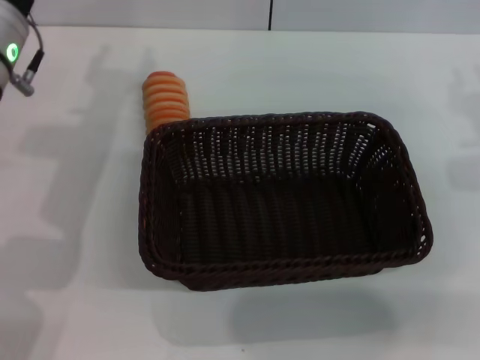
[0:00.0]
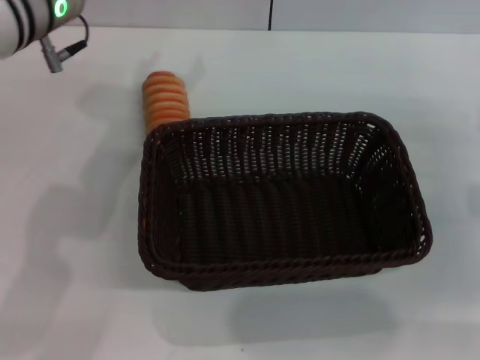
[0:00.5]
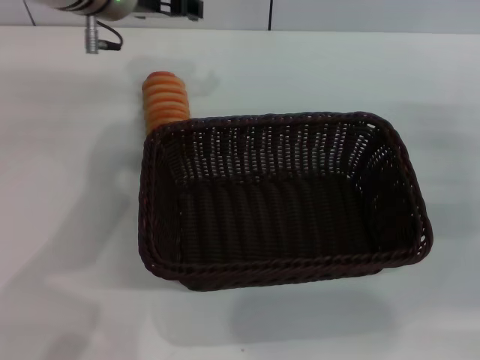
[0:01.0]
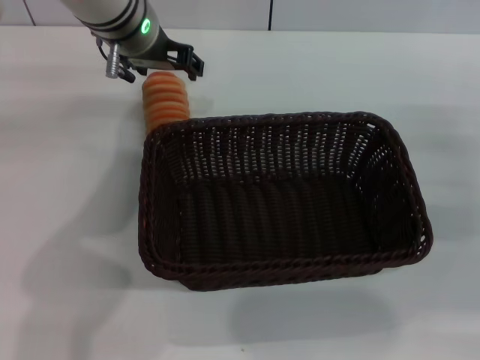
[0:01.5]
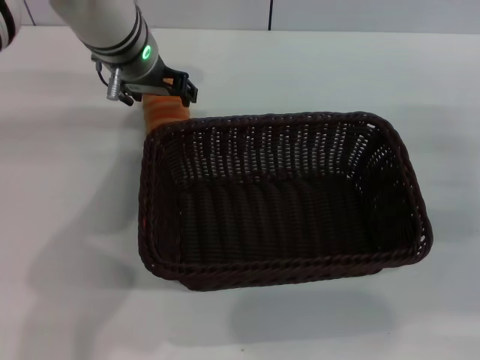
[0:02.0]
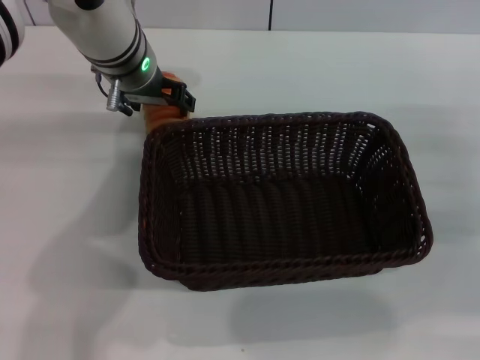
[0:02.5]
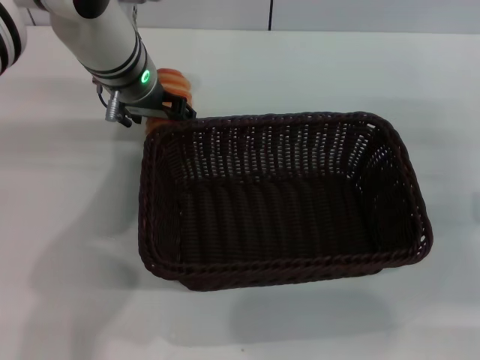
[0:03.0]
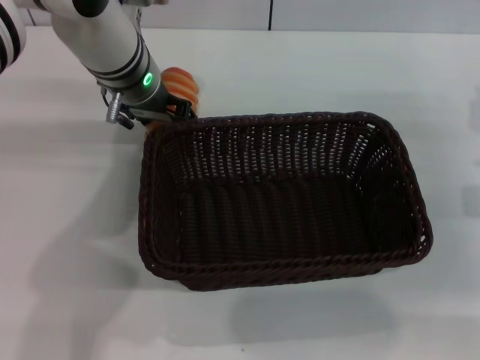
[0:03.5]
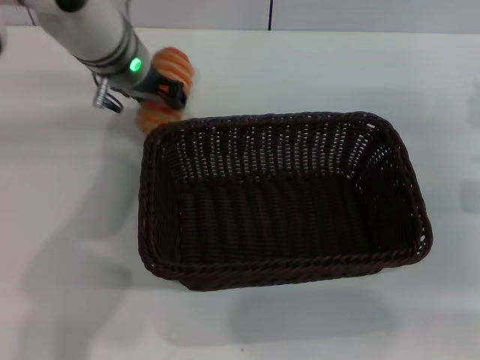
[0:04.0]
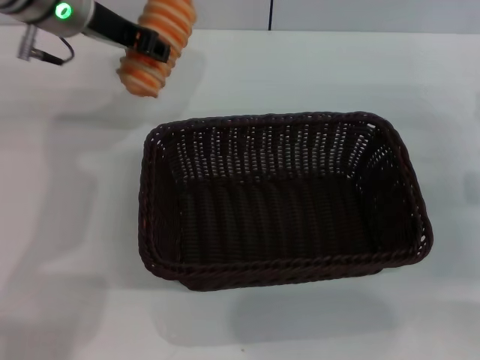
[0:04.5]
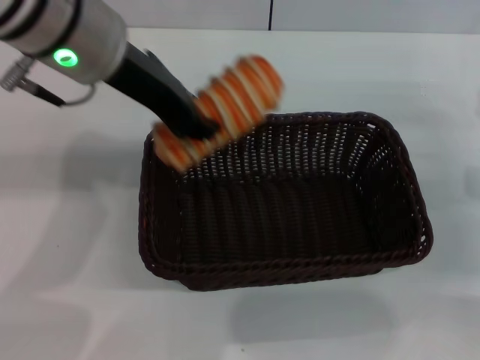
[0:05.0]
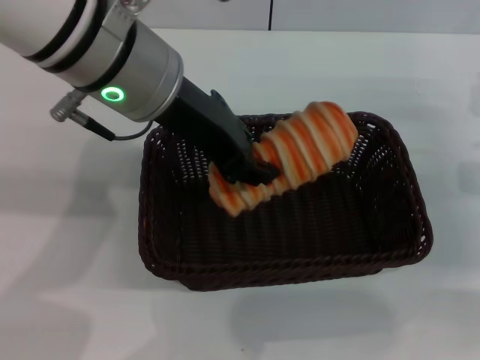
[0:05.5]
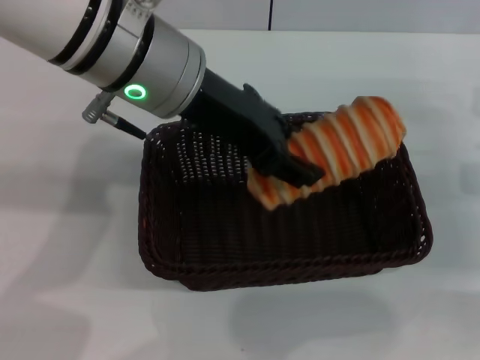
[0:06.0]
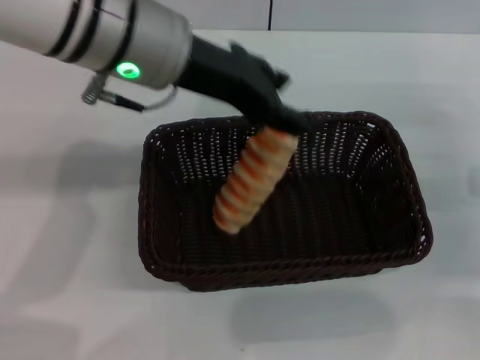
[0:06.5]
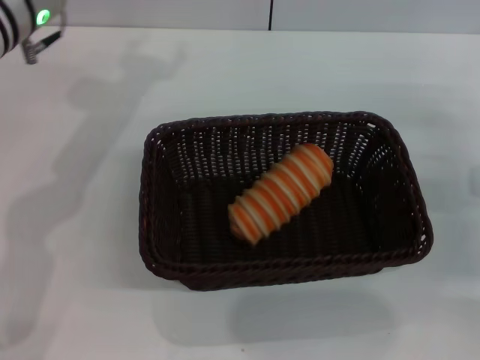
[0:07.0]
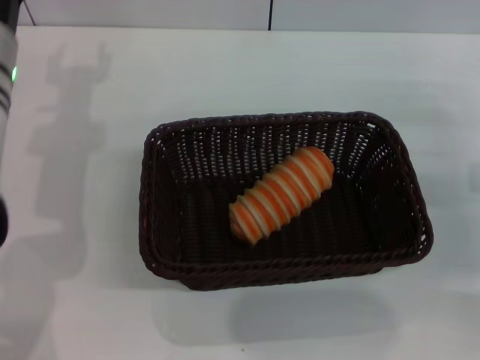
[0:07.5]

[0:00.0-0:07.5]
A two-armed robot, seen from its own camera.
Step, 0:00.0 to 0:04.0: Pick up the long bread with the left gripper.
Step, 0:04.5 to 0:06.5: Place the long bread into the dark basket with the left gripper.
0:00.0 to 0:02.0: The right gripper heads downward, covering roughly 10 cm; the left gripper moves to the right and forward, approximately 15 cm.
0:02.0 to 0:04.0: The left gripper closes its fingers.
0:04.0 to 0:05.5: The left gripper heads backward and upward, covering roughly 15 cm, and closes up.
0:05.5 to 0:07.5: The left gripper heads to the left, downward and forward, covering approximately 20 cm, and opens.
